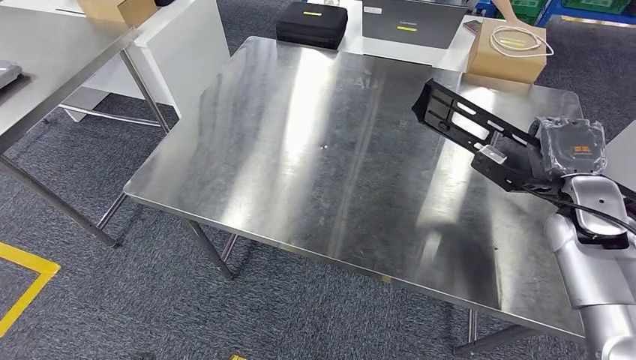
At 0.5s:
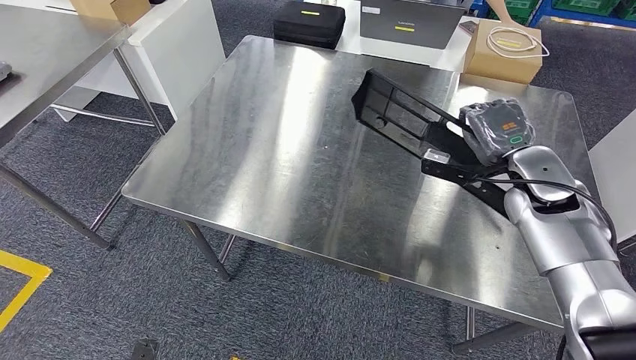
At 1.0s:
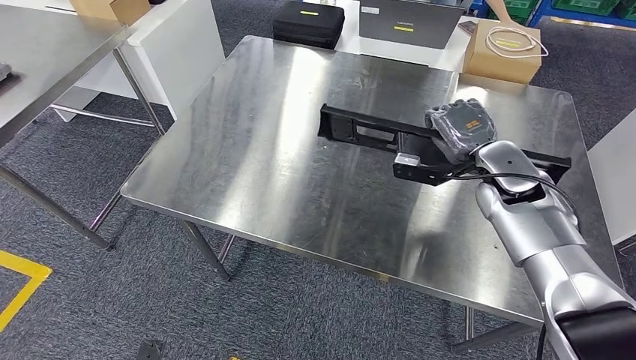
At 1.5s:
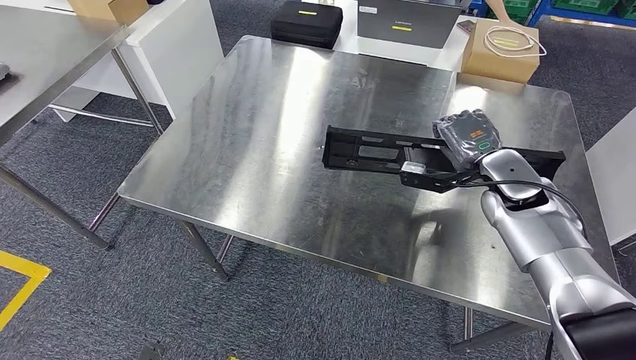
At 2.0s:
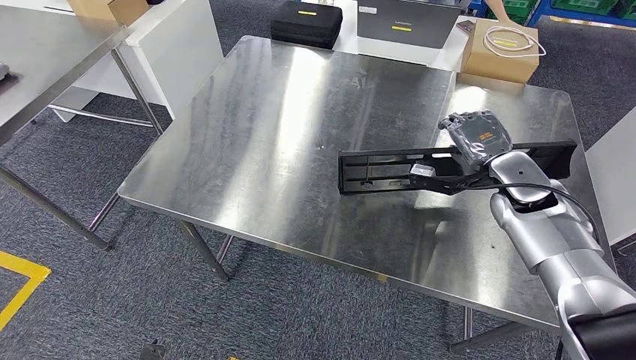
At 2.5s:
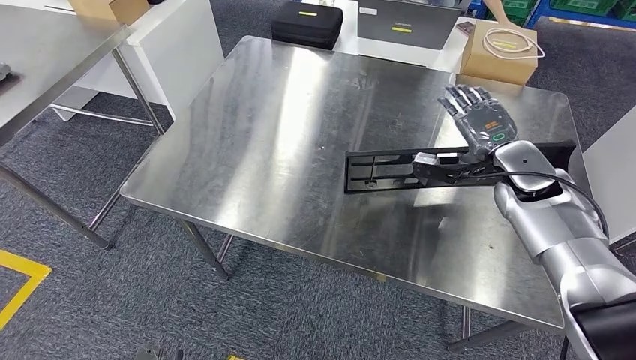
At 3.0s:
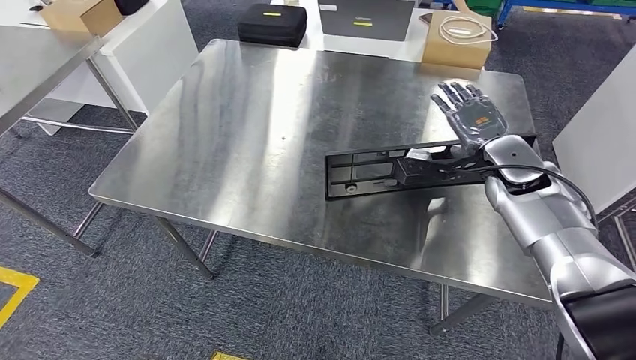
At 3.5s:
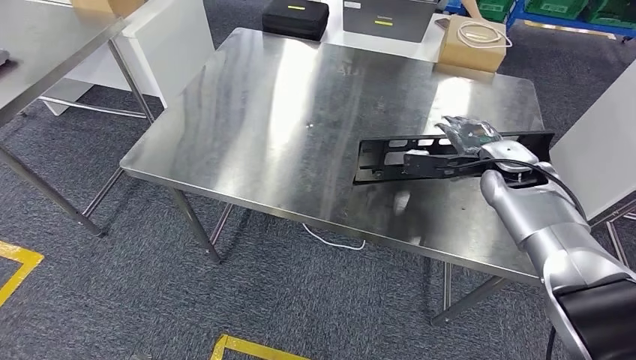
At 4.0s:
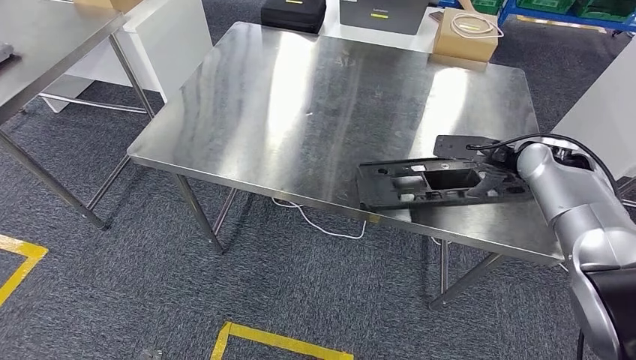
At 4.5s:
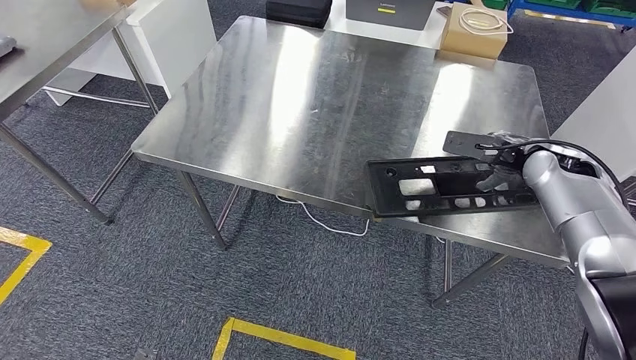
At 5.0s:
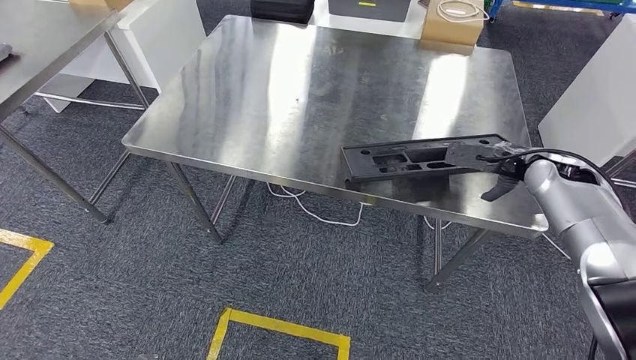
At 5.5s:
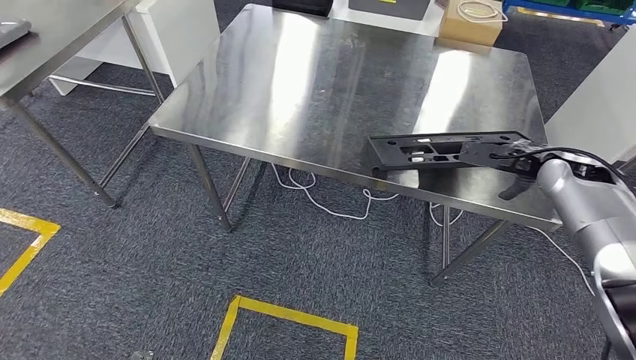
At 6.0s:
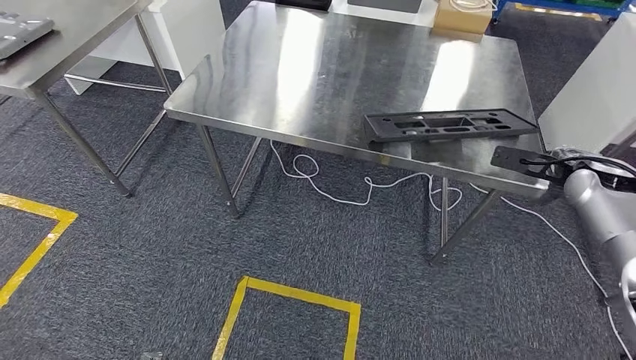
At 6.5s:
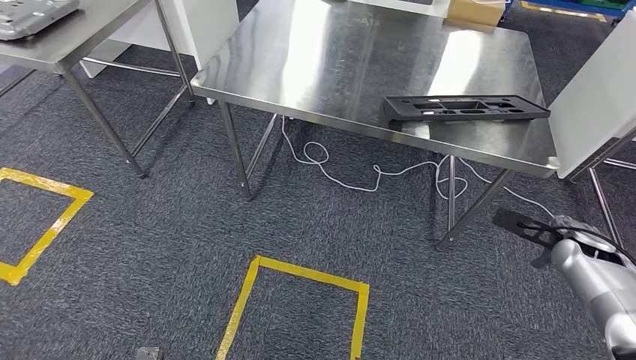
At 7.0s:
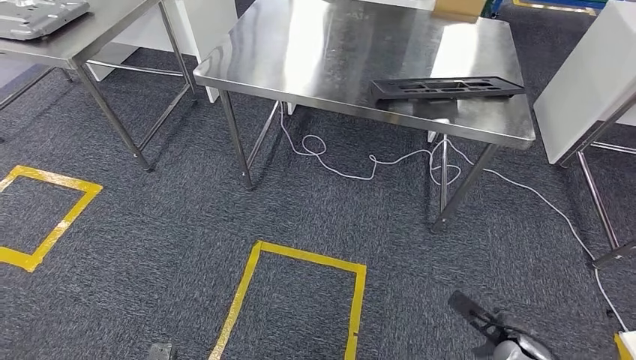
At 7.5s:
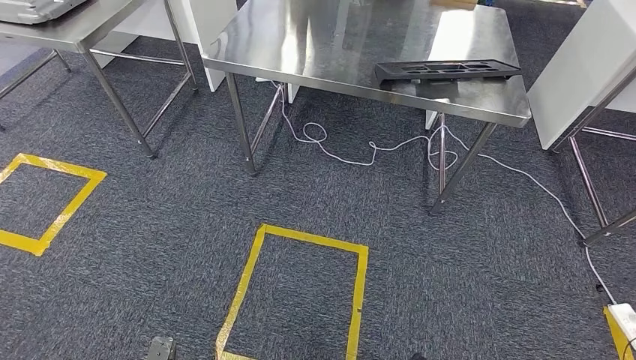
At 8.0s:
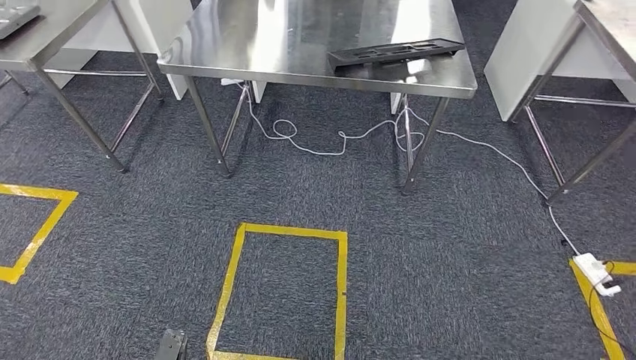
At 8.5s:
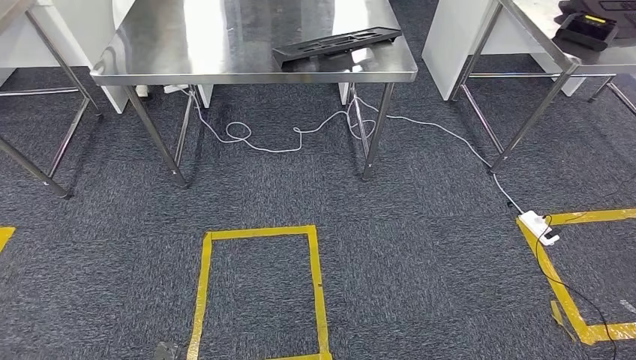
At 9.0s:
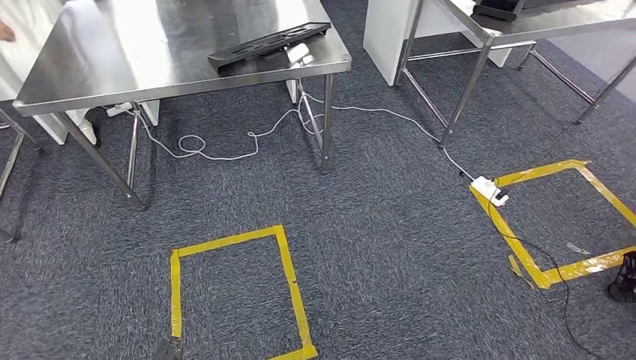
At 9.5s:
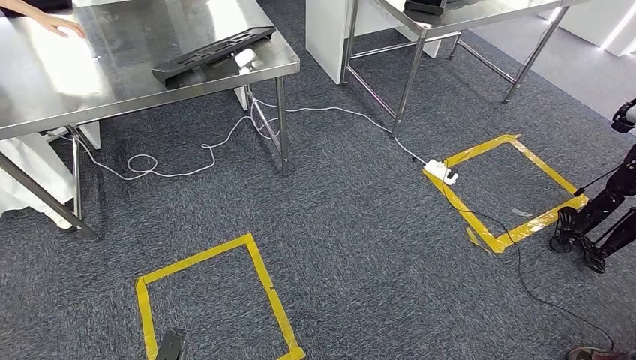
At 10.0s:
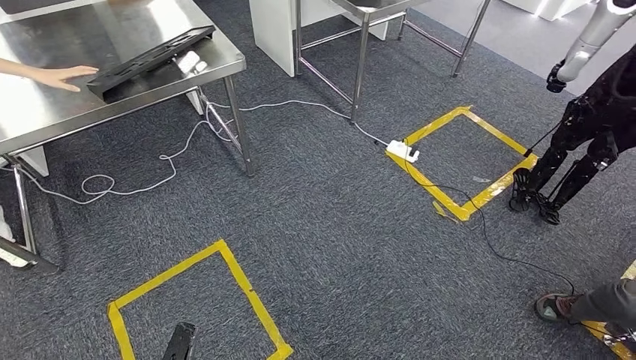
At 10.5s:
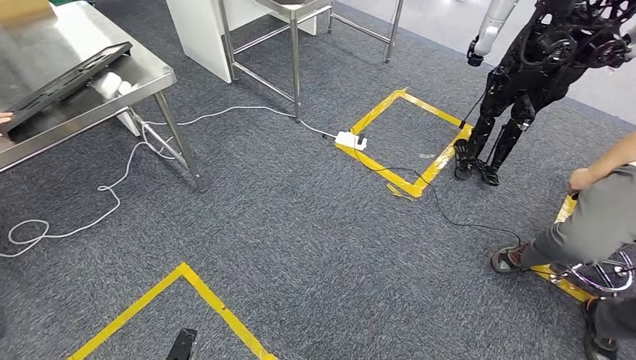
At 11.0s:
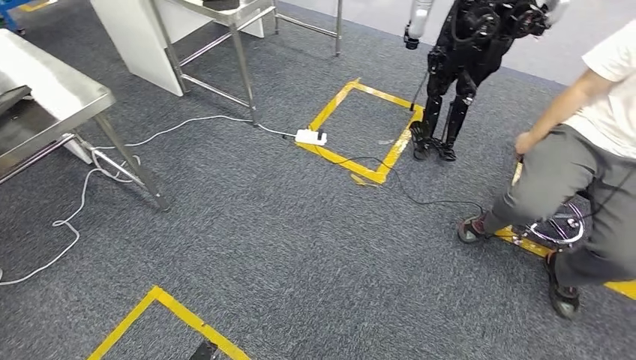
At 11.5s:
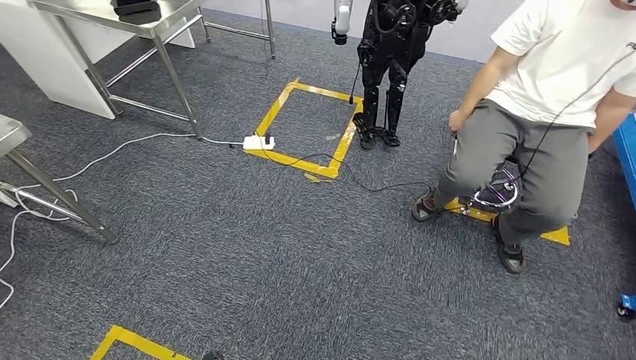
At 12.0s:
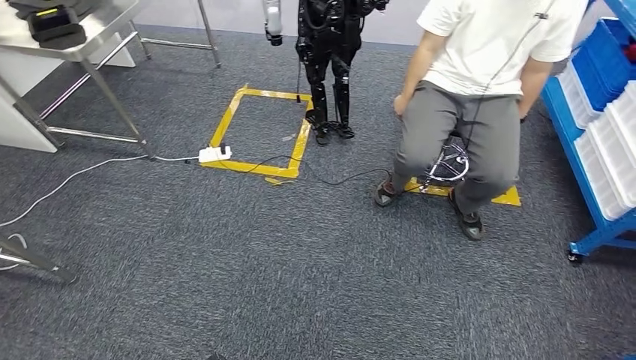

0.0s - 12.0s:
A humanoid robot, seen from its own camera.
Step, 0.0s - 6.5s: Insert the large material into the corresponding slot on the workbench.

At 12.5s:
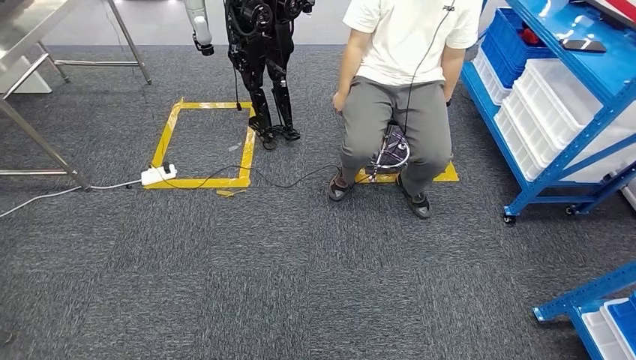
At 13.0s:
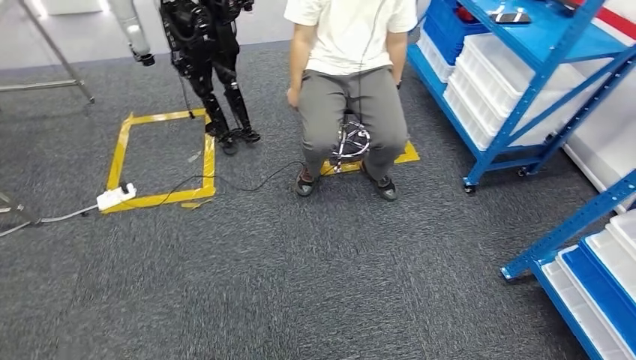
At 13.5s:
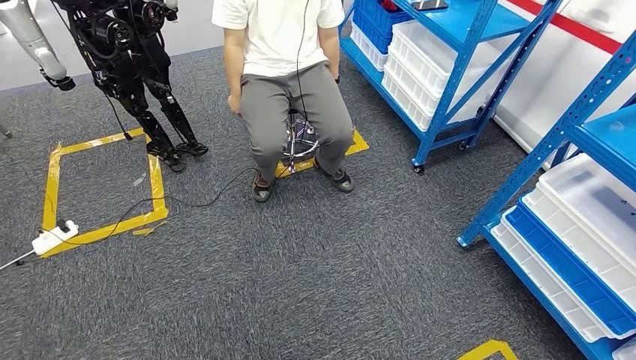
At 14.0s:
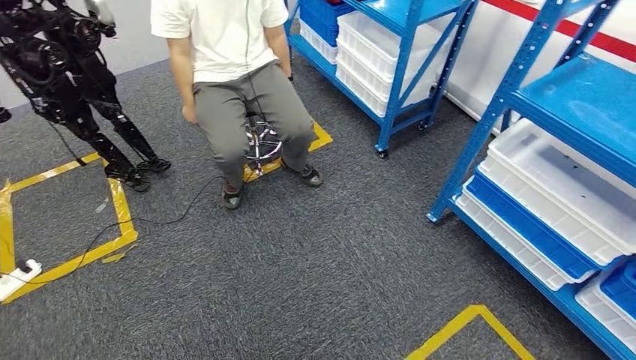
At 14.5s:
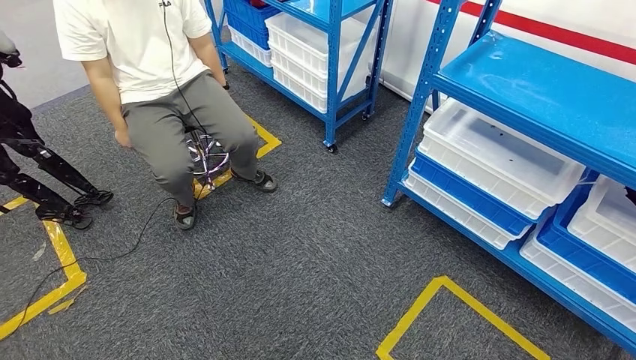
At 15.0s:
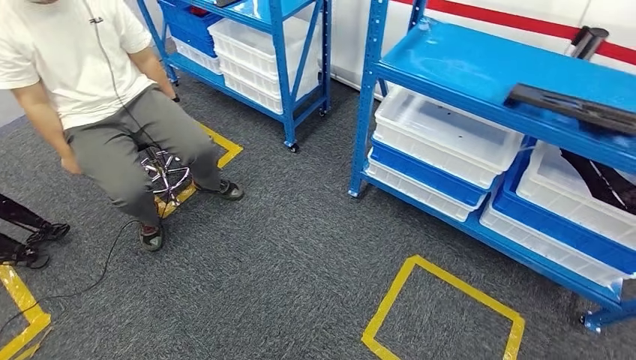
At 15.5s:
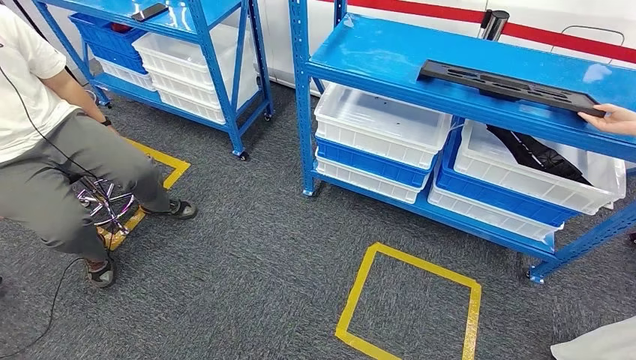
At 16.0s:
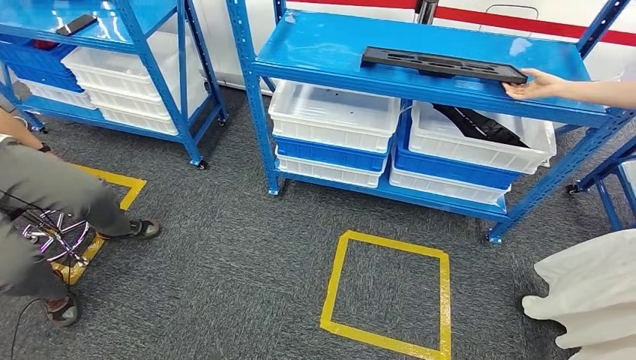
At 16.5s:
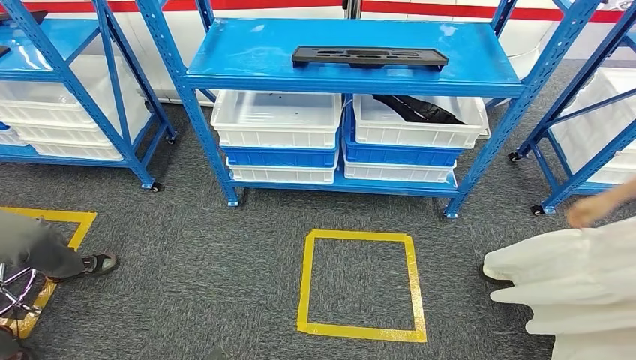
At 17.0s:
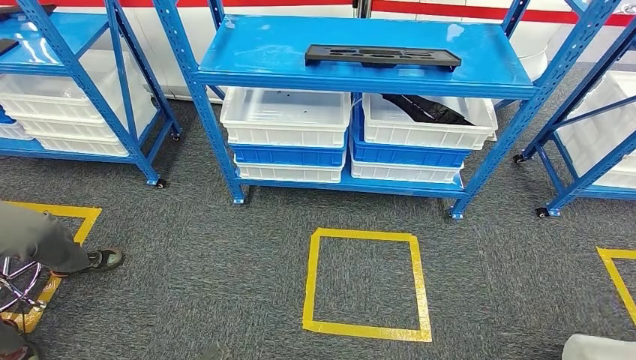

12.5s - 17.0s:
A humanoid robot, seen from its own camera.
Step, 12.5s - 17.0s: Move to the initial position of the shelf.
